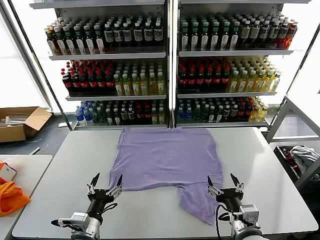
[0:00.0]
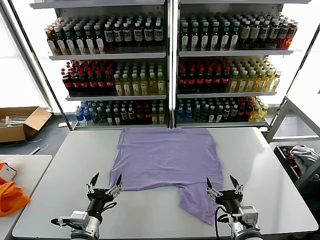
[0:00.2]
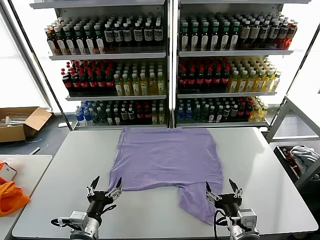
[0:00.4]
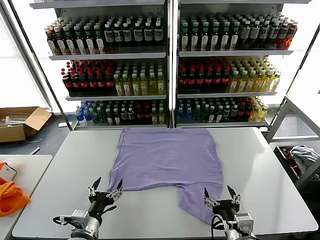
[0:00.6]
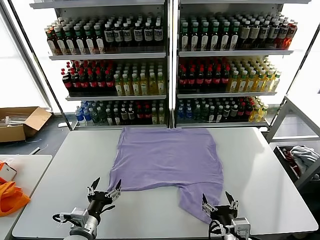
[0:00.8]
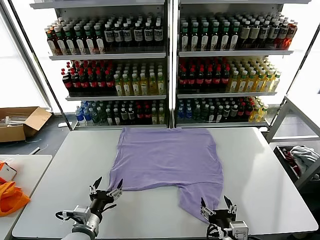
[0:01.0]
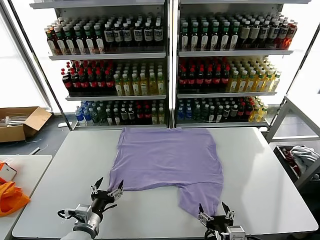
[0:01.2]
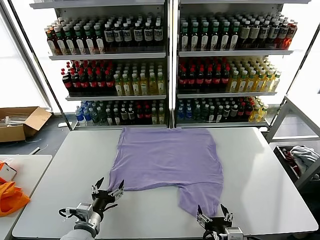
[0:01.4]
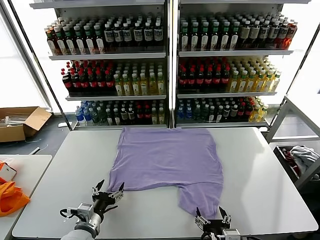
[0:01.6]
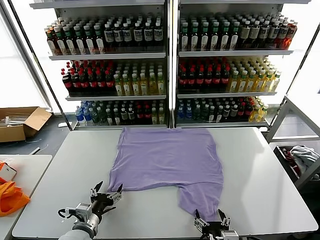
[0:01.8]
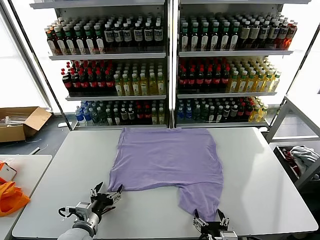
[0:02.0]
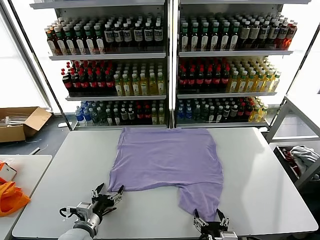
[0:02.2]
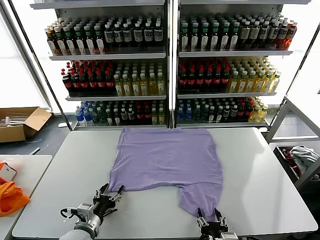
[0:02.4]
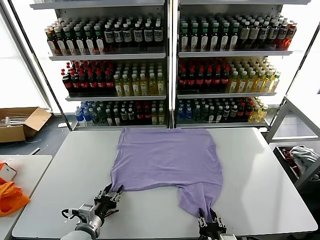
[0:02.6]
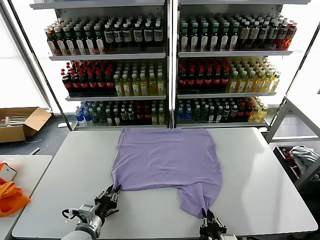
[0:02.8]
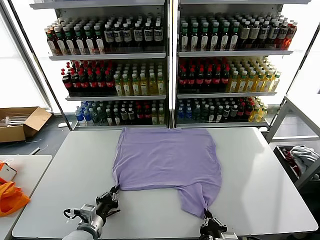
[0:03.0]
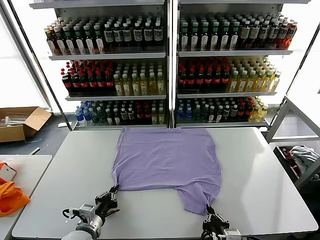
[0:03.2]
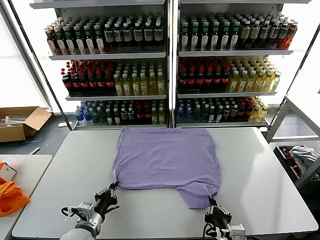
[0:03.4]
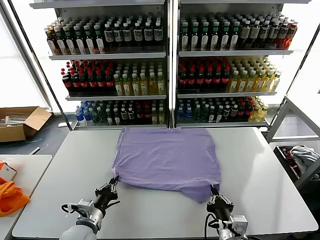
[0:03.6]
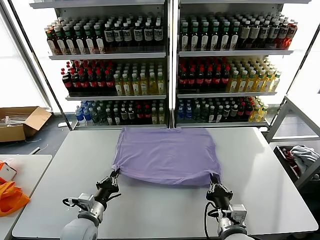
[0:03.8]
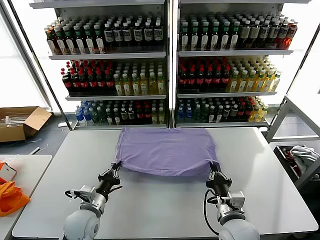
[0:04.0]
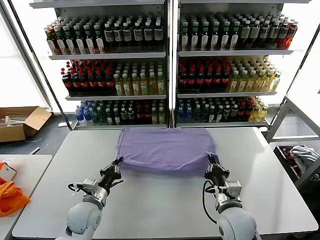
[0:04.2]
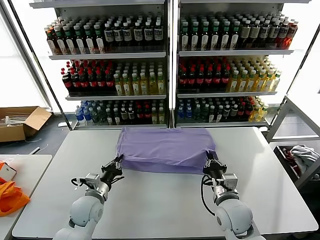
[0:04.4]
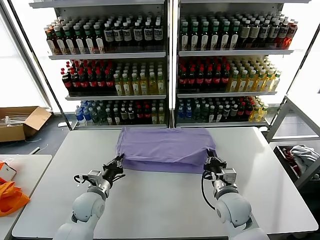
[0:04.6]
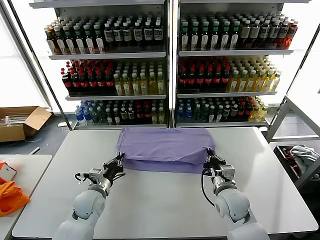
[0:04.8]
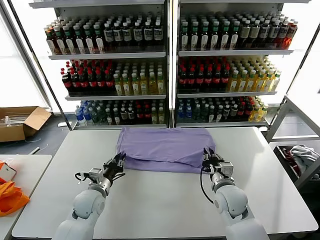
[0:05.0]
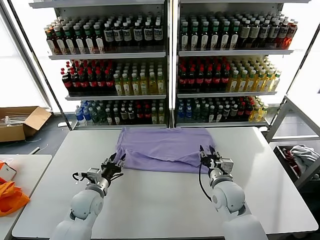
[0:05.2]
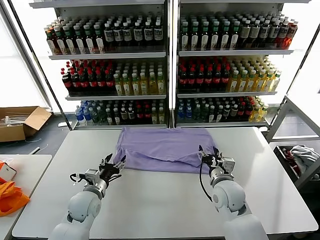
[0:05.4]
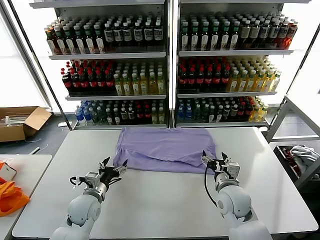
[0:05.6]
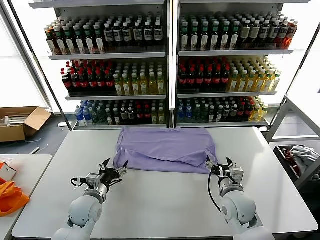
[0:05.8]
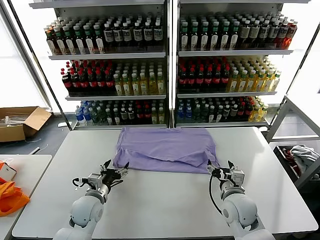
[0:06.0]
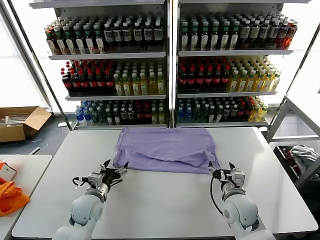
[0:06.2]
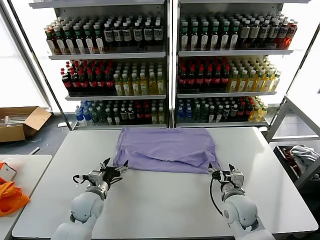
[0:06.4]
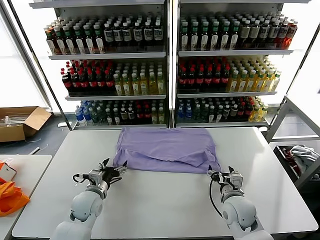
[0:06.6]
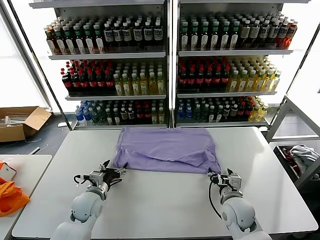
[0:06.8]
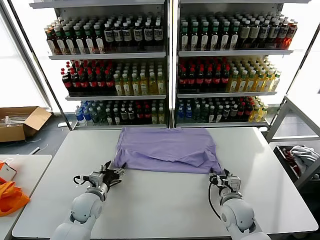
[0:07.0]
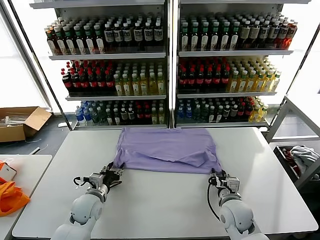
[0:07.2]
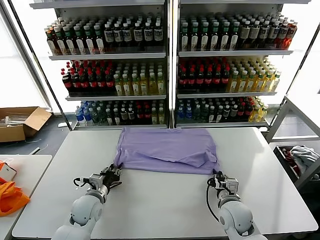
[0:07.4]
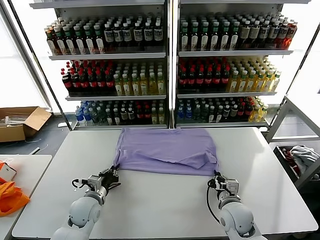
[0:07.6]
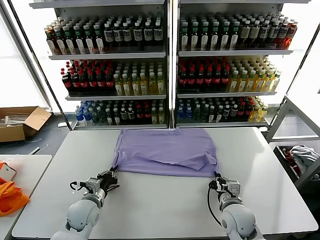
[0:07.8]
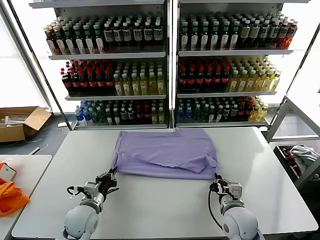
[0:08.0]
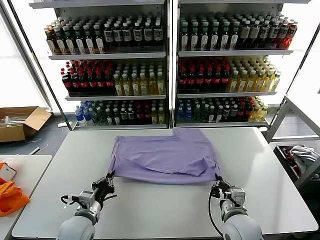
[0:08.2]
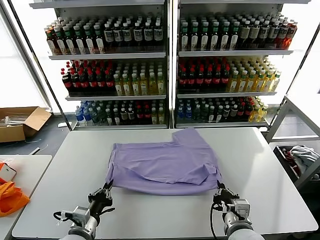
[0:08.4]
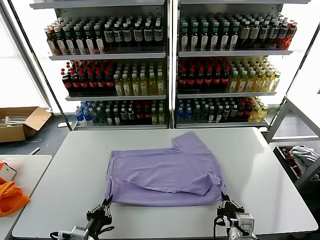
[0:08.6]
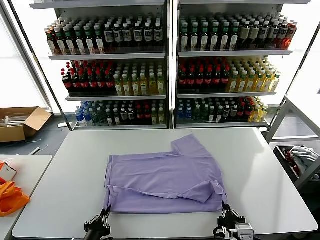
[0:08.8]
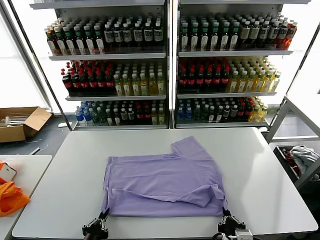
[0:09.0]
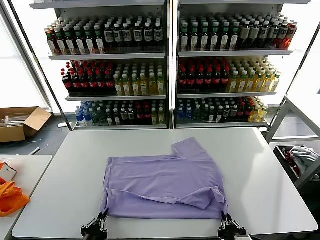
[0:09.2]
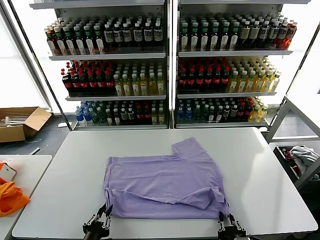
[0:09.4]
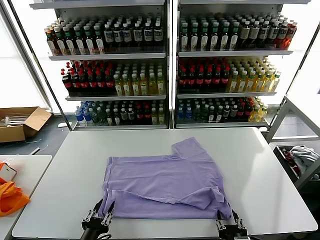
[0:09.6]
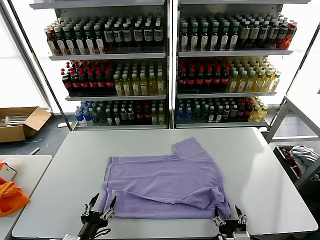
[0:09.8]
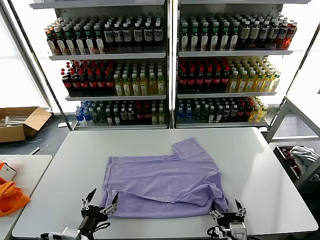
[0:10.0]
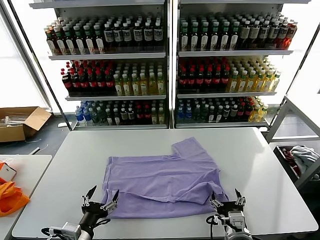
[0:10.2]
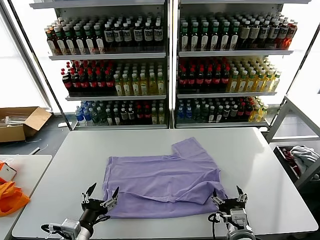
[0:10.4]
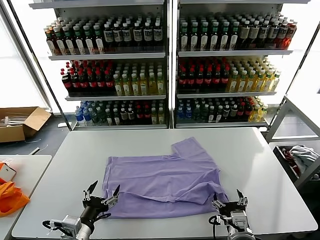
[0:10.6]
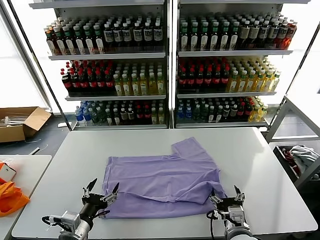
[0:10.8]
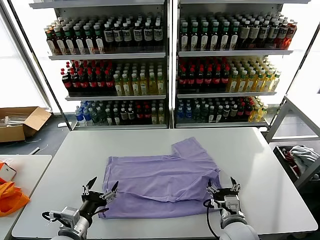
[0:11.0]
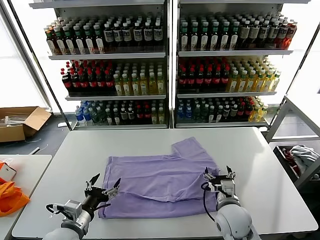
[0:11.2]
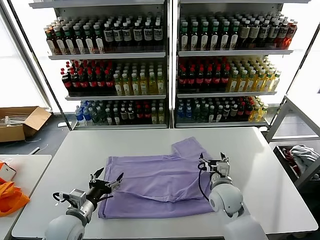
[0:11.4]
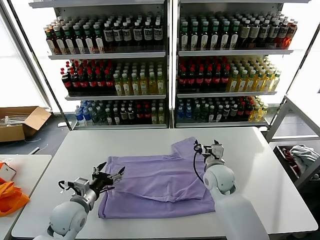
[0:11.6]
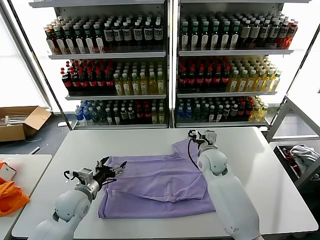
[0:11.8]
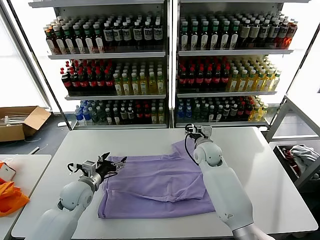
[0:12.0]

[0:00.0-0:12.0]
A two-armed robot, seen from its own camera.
Task of the whole recording: fold and organize the clothes.
Step, 0:00.0 to 0:03.4: use both grippers simultaneously to clamp the lower edge of the clothing fabric.
Step, 0:03.6 to 0:05.0: use both grippers to drag the lower edge of the fabric forward and fold it over the upper edge.
Step, 0:05.2 to 0:09.8: Drag the clothes downward with both gripper.
0:01.6 to 0:03.0: The left gripper closes its fingers. The right gripper closes up.
0:03.0 to 0:04.4: The left gripper heads forward, covering some 10 cm; the right gripper is displaced forward by roughly 20 cm.
0:04.4 to 0:06.0: The right gripper opens its fingers; the left gripper opens its fingers.
0:06.0 to 0:07.6: The left gripper closes its fingers. Meanwhile the right gripper closes.
0:07.6 to 0:09.0: The two grippers go approximately 20 cm backward.
0:09.0 to 0:10.4: The grippers both shift forward by about 5 cm. The left gripper opens. The right gripper opens.
0:10.4 to 0:12.0: The right gripper travels forward by approximately 35 cm, while the left gripper goes roughly 20 cm forward.

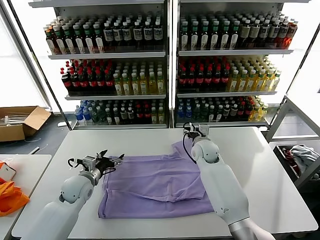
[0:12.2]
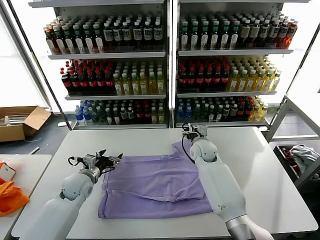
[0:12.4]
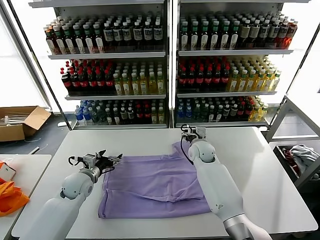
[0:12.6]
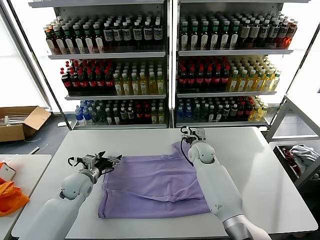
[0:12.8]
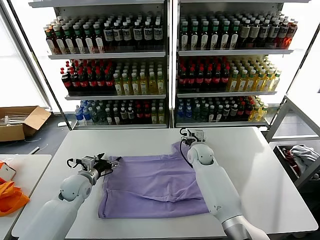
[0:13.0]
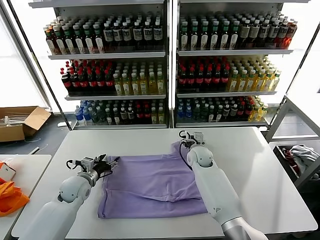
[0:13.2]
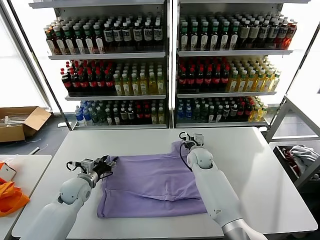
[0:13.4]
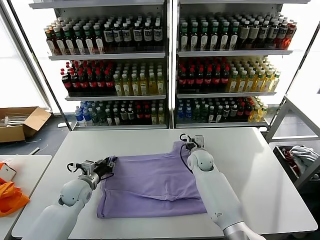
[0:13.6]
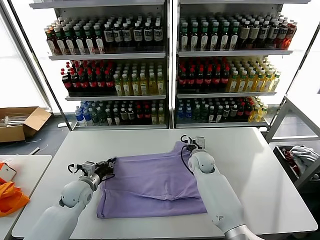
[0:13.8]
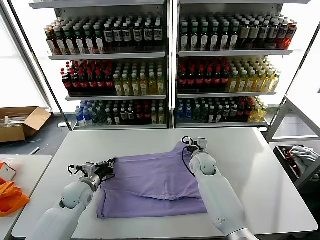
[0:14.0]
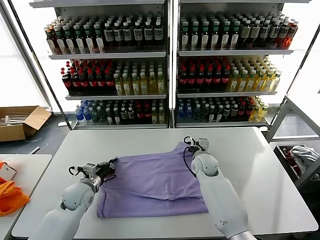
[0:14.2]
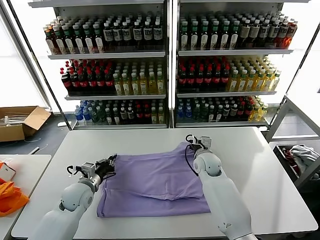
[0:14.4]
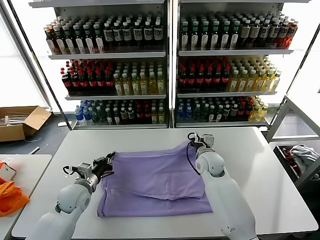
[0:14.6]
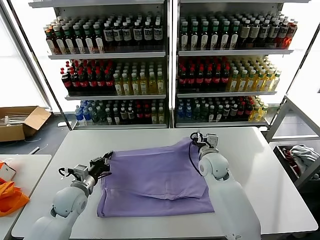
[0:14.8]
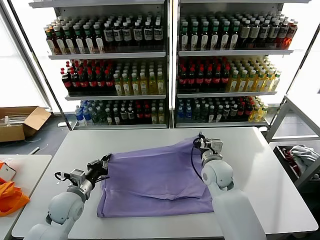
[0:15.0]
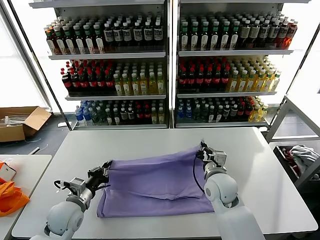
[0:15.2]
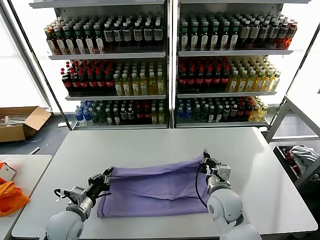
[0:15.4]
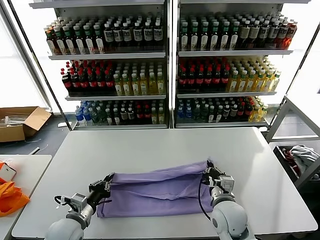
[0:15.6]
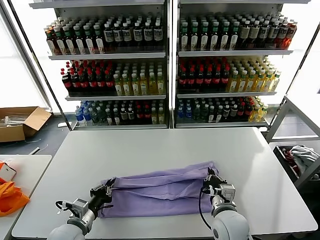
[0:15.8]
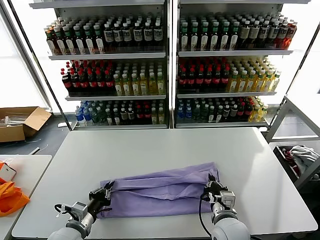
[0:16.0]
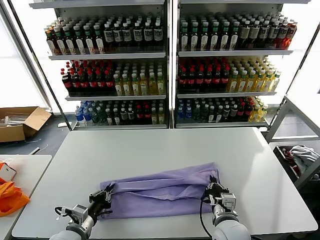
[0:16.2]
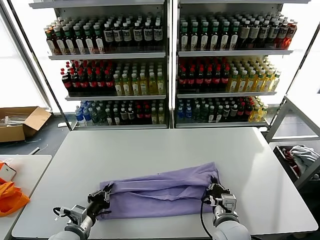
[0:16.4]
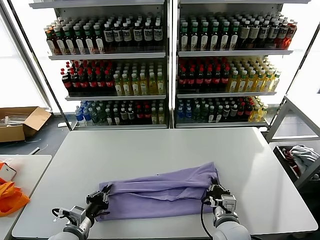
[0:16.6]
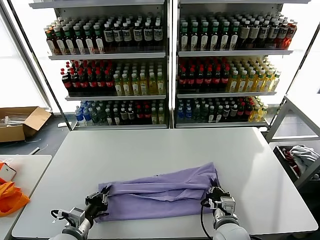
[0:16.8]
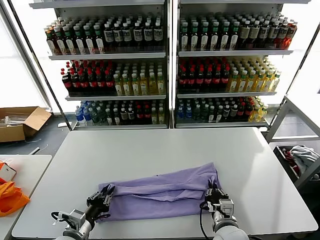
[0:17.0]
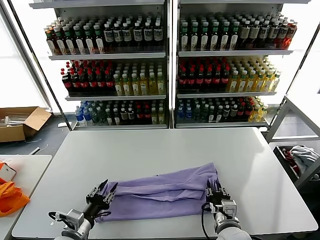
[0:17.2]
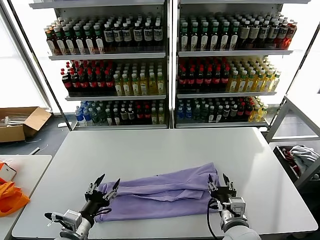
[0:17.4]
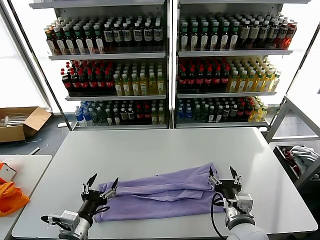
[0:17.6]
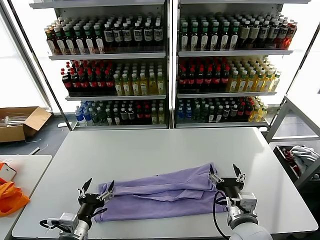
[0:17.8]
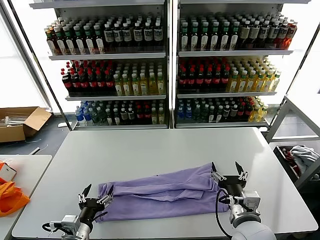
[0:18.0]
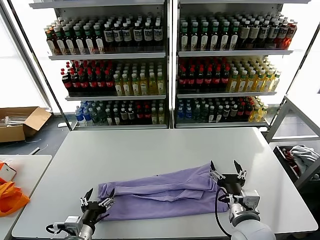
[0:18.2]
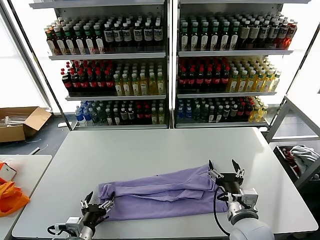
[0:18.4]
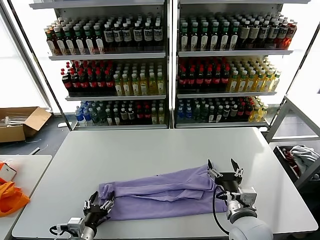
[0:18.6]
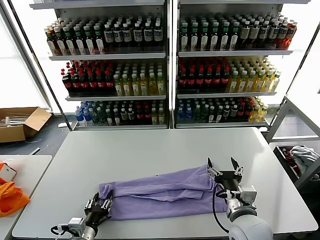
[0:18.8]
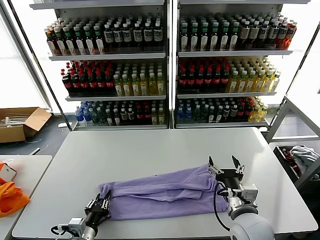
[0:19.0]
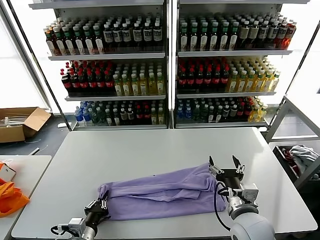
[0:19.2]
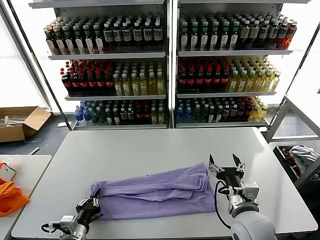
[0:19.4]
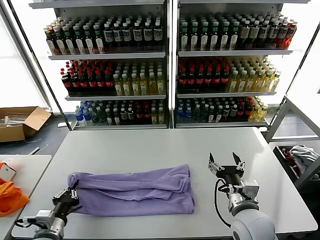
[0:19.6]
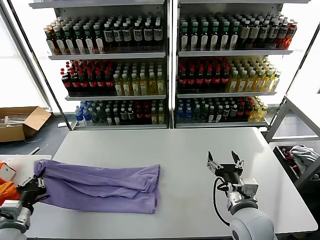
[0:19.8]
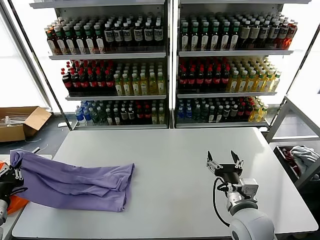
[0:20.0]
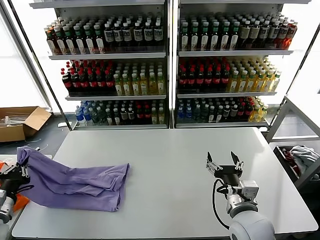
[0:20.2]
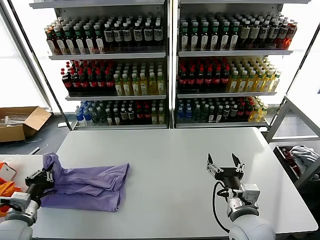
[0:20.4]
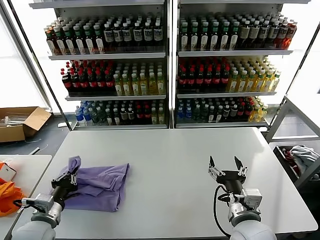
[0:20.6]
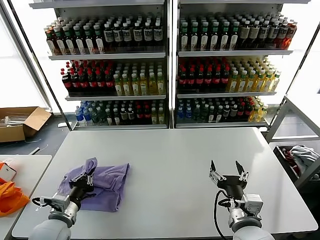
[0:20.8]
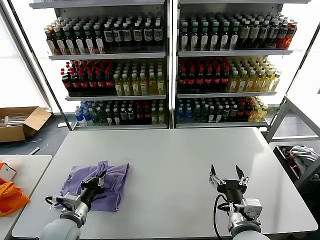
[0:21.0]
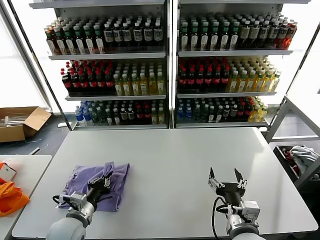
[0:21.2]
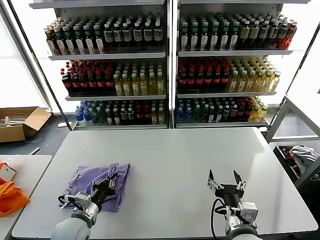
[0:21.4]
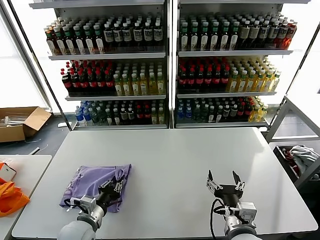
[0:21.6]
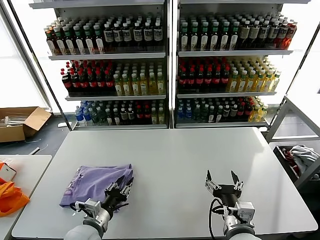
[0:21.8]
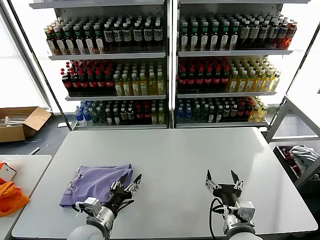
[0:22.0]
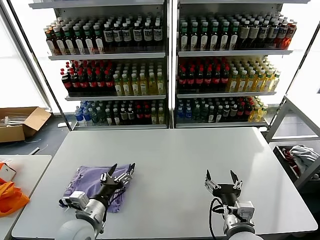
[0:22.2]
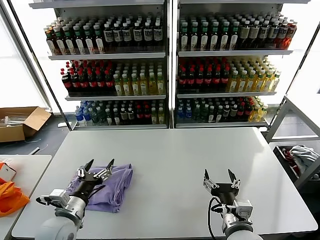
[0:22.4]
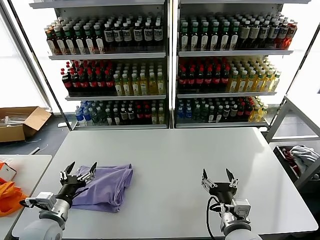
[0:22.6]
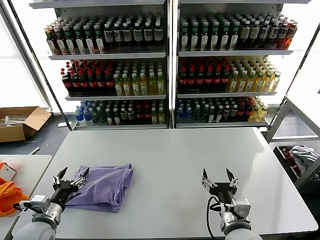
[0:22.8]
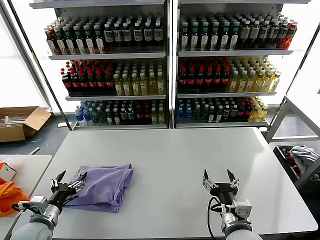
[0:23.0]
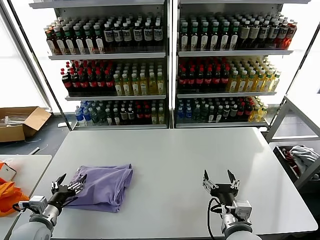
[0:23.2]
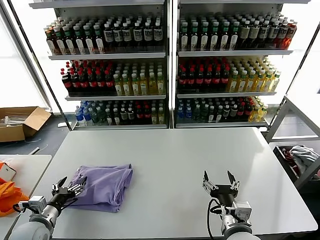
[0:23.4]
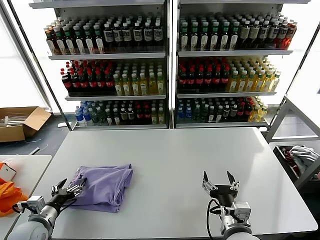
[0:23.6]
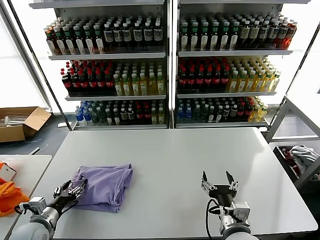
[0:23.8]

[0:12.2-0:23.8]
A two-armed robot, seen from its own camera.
Task of the whole recording: fold and organize the clothes.
Step, 0:14.2 to 0:17.2: use both grippers to drag the upper edge of the fabric backward and fold it over the lower edge.
Step, 0:17.4 to 0:19.2: use the left gripper to clamp the left edge of the fabric.
Step, 0:19.4 to 0:21.8: use the left gripper to drag the left edge of the fabric to the left and folds it over the right edge.
0:12.2 to 0:13.6: The right gripper travels downward by roughly 5 cm, and closes its fingers. The left gripper closes its fingers.
0:13.6 to 0:15.0: The left gripper goes roughly 5 cm backward, while the right gripper moves backward and upward, some 15 cm, and closes up.
0:15.0 to 0:16.6: Both grippers move backward, about 15 cm.
0:16.6 to 0:18.0: The right gripper shifts roughly 10 cm upward, and opens its fingers. Meanwhile the left gripper opens its fingers.
0:18.0 to 0:19.4: The left gripper closes up.
0:19.4 to 0:21.0: The left gripper goes approximately 5 cm forward, and moves approximately 20 cm to the left and comes back; the right gripper shifts by approximately 5 cm.
0:21.0 to 0:22.4: The left gripper travels to the right and back again, about 10 cm each way, and opens.
0:22.4 to 0:23.8: The left gripper moves to the left and downward, some 15 cm.
